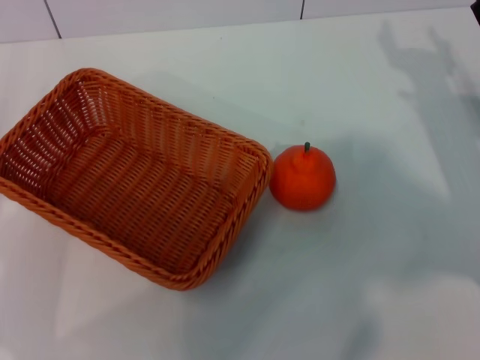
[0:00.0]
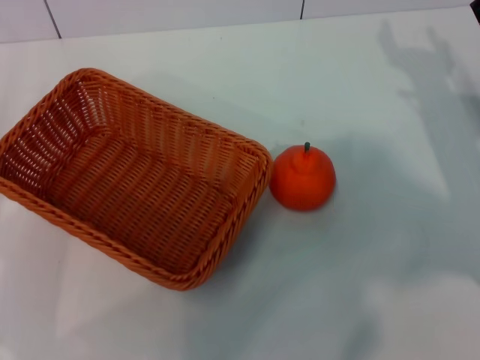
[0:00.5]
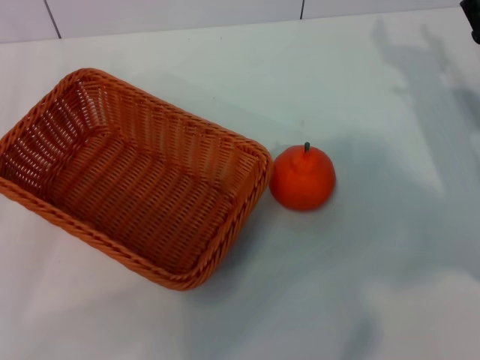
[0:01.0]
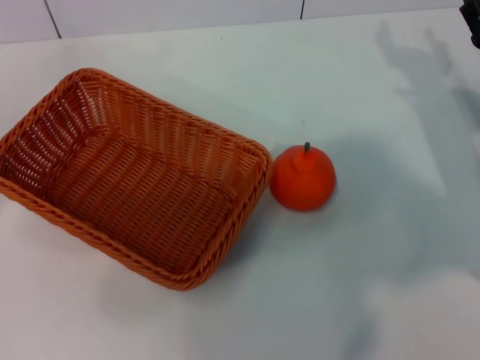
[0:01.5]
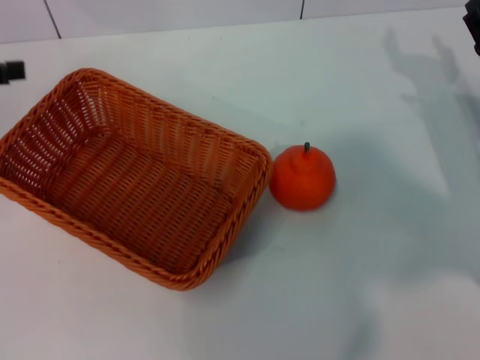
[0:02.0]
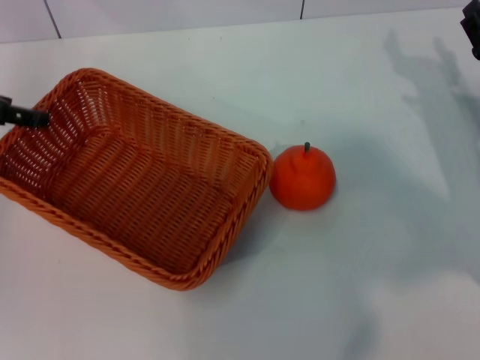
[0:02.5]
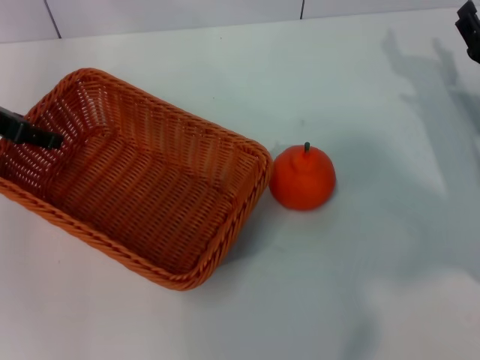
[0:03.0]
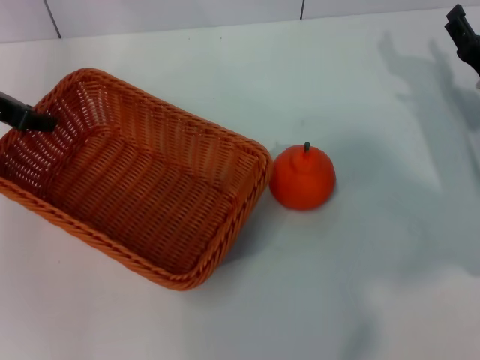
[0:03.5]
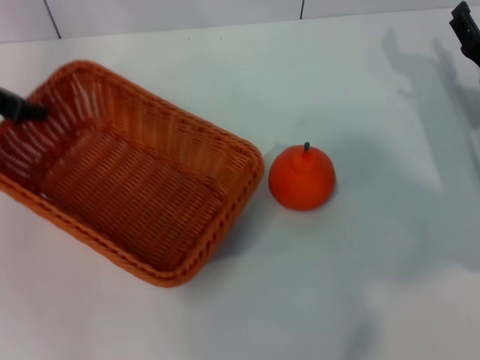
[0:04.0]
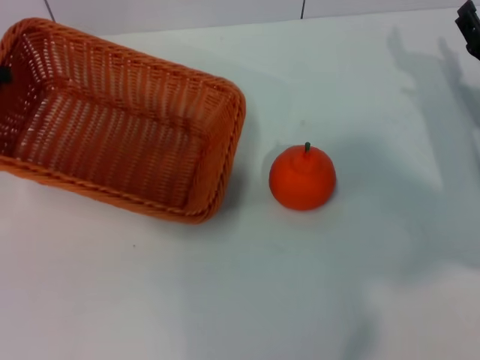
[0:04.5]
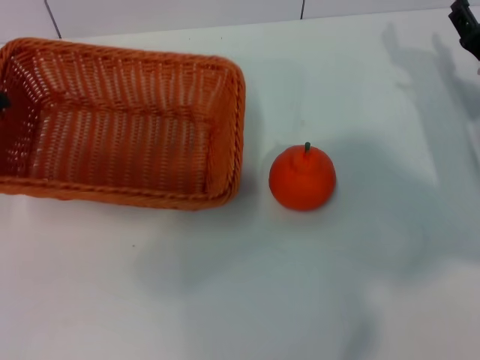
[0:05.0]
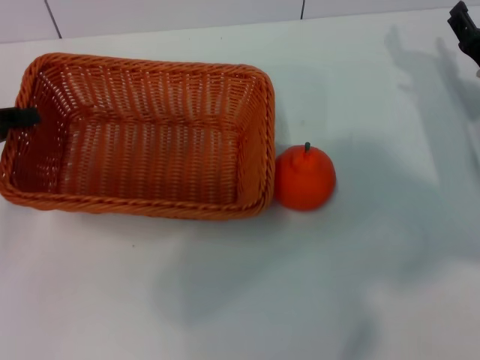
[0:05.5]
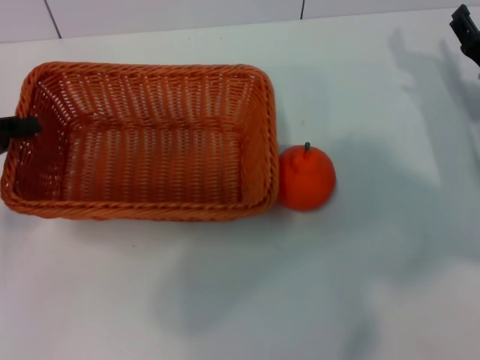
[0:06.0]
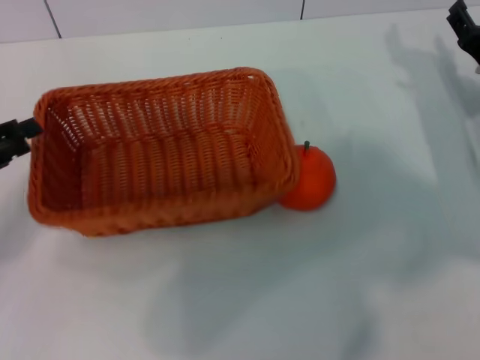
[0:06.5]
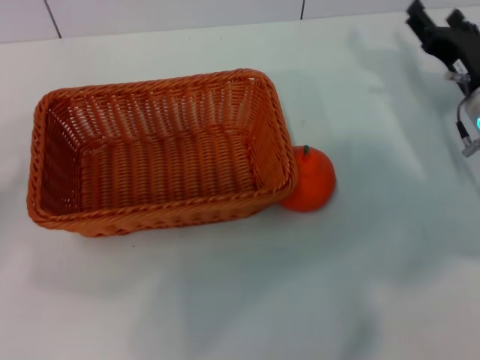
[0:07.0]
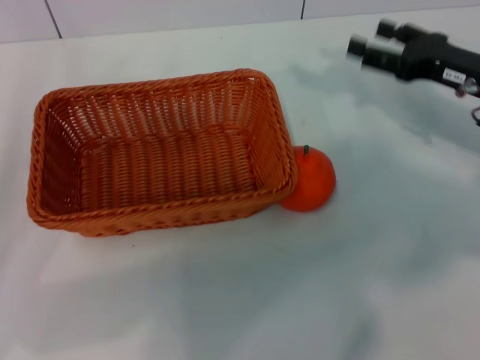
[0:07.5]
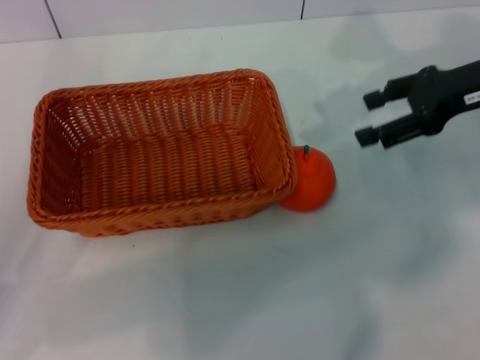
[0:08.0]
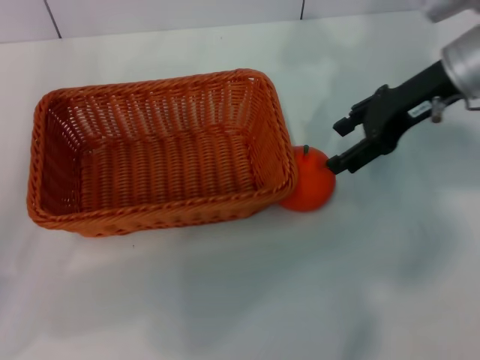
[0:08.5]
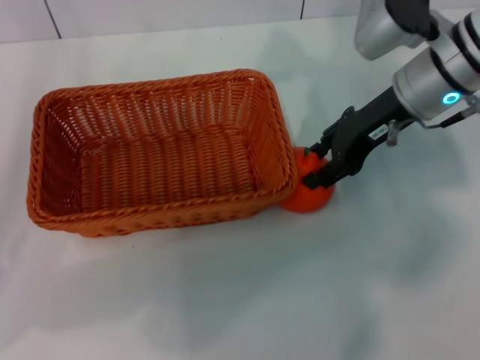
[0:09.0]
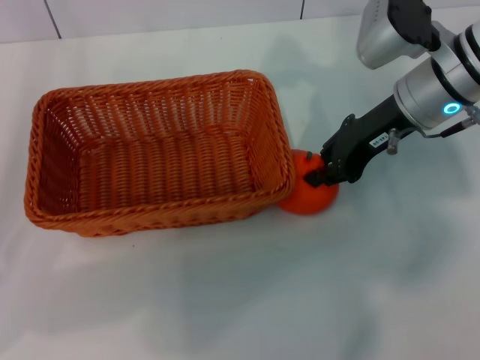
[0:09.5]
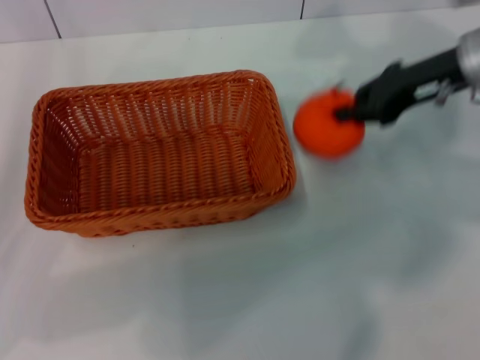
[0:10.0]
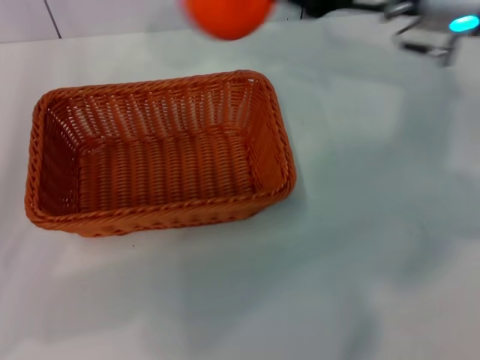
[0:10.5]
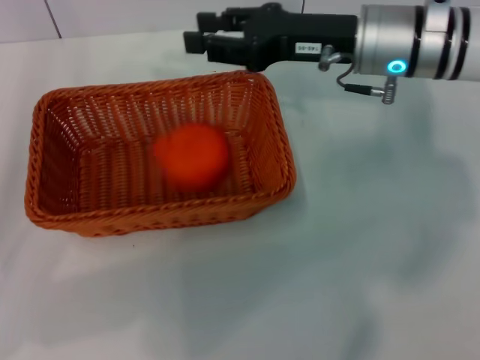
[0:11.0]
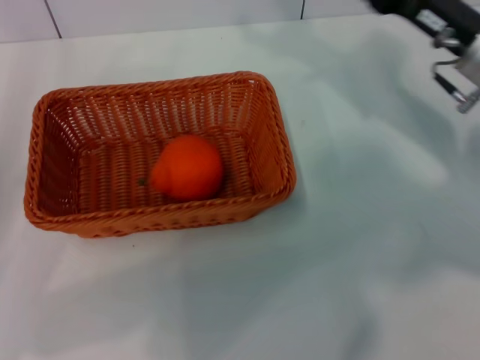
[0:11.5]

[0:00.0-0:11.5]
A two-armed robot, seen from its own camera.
Task of the whole recording: the left gripper pick up the yellow basket and place it horizontally in the middle of the table, the right gripper pick up the orange and place it into the yellow basket.
Step, 0:00.0 to 0:04.0: Pick up the light basket with the left gripper.
Step, 0:04.5 to 0:06.5: Place the light basket in the center of view with the left gripper.
Step, 0:07.0 to 0:09.5: Pick up the orange with the right gripper.
Step, 0:10.5 to 0:11.0: Place the orange into the light basket with the right gripper.
0:00.0 to 0:02.0: The left gripper shifts roughly 20 cm forward and upward.
0:02.0 to 0:04.0: The left gripper travels to the right by some 5 cm, and closes its fingers.
0:04.0 to 0:06.0: The left gripper shifts roughly 10 cm backward and downward.
0:06.0 to 0:07.5: The left gripper heads backward, covering some 5 cm, and opens its fingers, while the right gripper heads upward, covering roughly 5 cm.
0:07.5 to 0:09.5: The right gripper heads to the left, covering some 10 cm, and closes.
0:09.5 to 0:11.5: The right gripper moves left and right over some 10 cm, changing direction 2 times, and opens.
